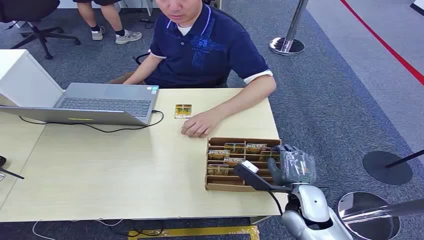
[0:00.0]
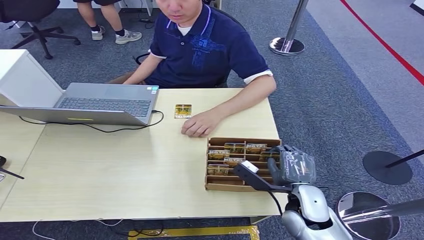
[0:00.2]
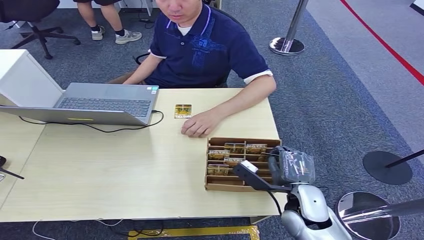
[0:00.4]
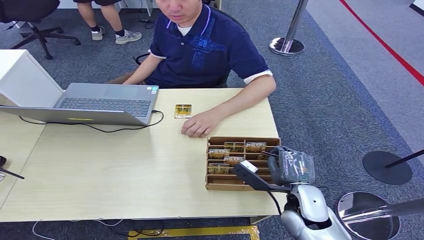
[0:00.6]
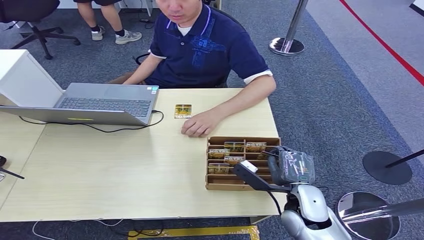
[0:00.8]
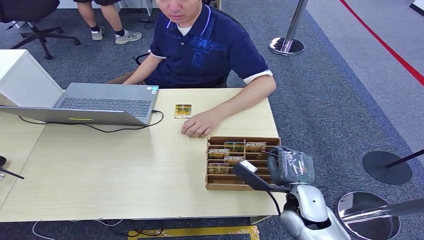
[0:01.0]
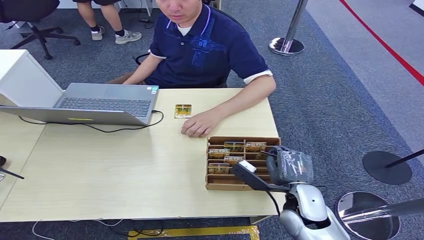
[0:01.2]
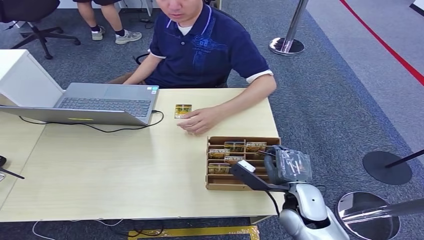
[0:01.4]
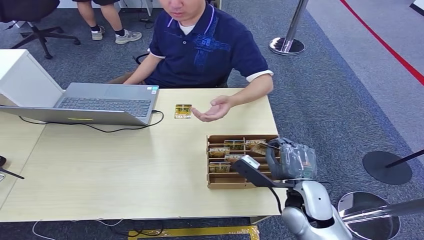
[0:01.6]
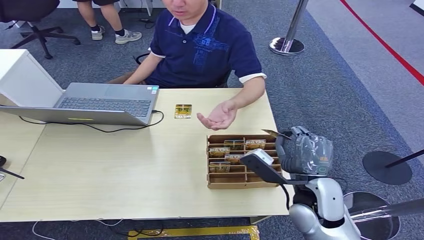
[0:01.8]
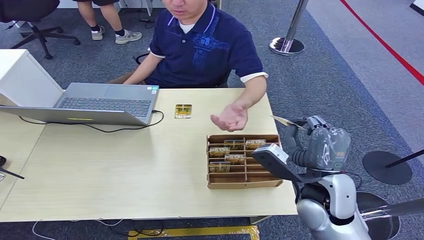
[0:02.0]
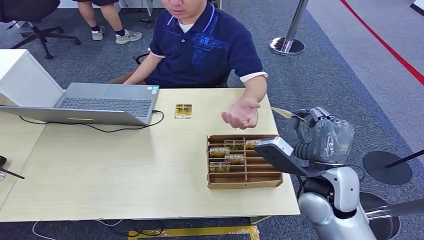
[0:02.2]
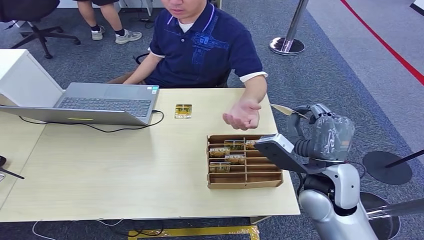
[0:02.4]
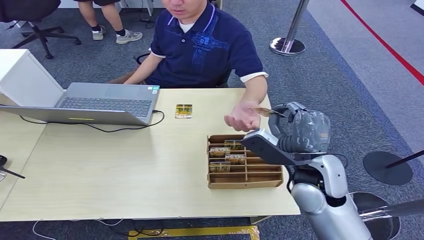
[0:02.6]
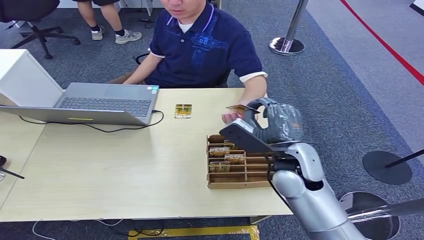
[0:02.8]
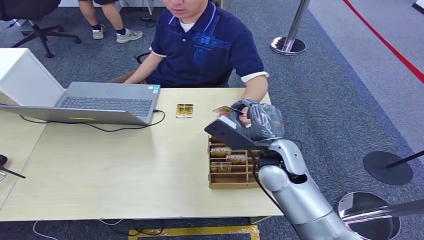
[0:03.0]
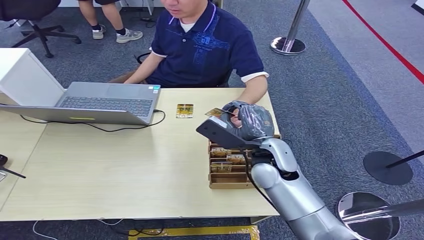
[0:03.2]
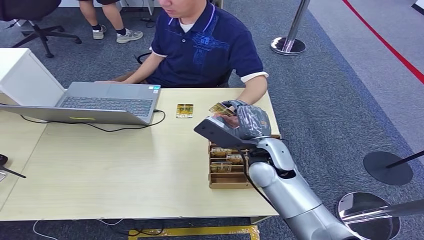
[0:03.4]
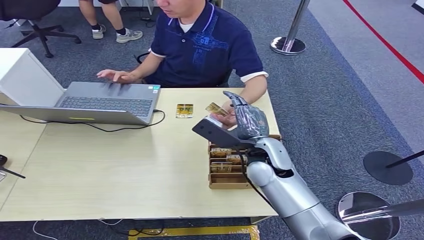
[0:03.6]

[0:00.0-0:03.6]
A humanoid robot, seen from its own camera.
Step, 0:00.0 to 0:01.8: Pick up the key card from the card box.
Step, 0:02.0 to 0:03.6: Hand the key card to the target.
0:01.8 to 0:03.6: The right hand shifts about 15 cm forward and to the left.
